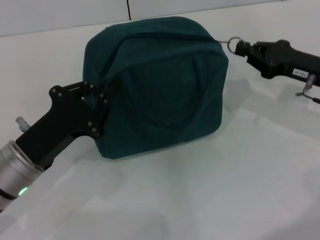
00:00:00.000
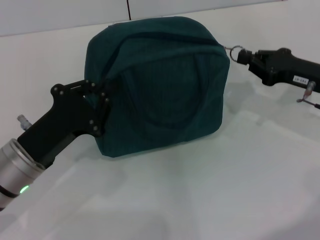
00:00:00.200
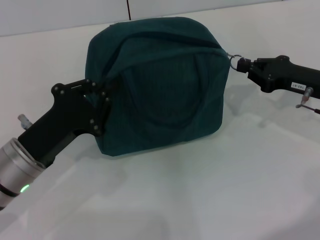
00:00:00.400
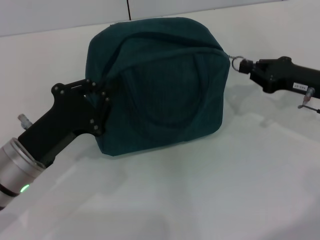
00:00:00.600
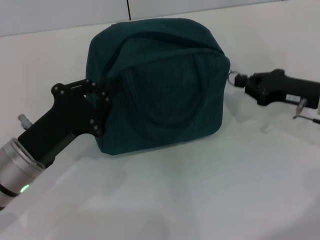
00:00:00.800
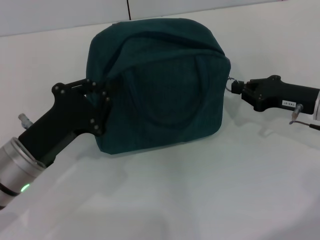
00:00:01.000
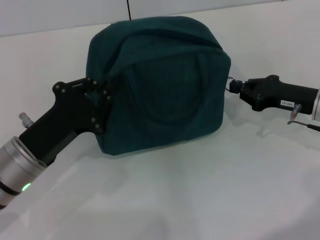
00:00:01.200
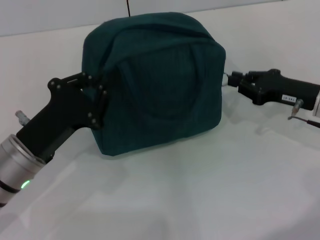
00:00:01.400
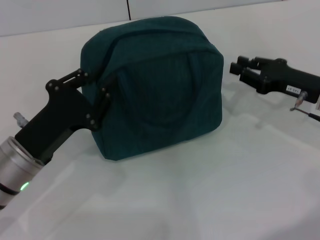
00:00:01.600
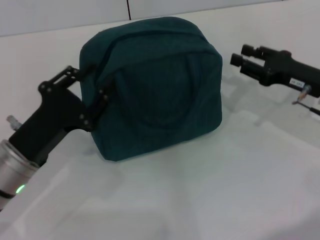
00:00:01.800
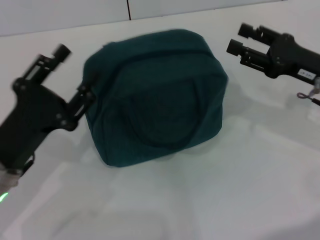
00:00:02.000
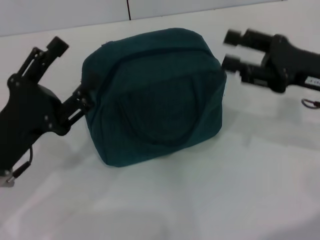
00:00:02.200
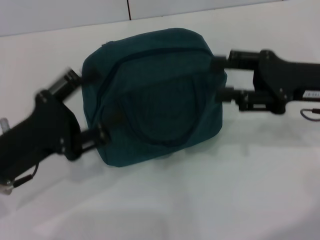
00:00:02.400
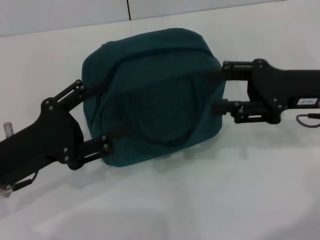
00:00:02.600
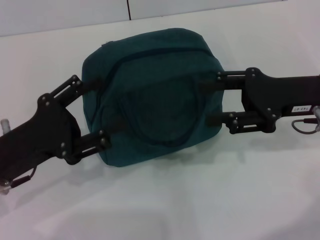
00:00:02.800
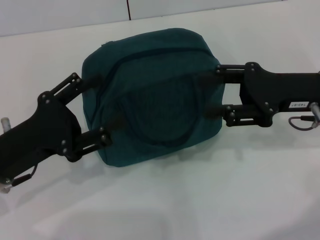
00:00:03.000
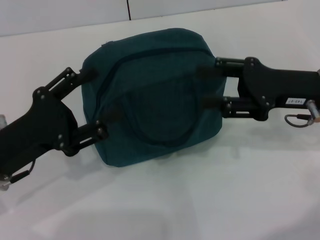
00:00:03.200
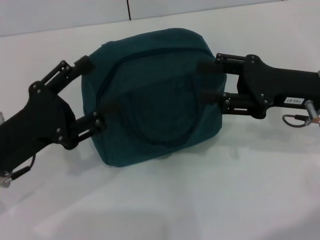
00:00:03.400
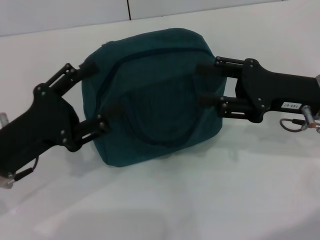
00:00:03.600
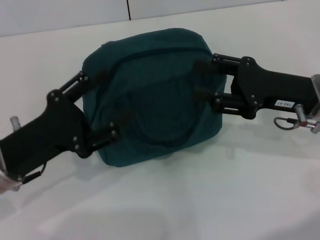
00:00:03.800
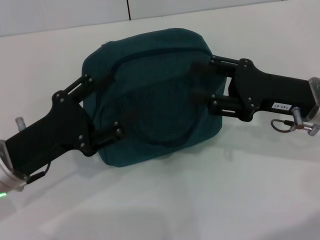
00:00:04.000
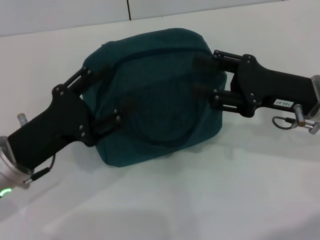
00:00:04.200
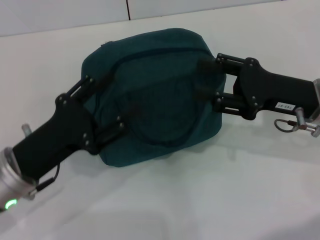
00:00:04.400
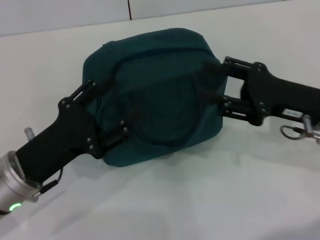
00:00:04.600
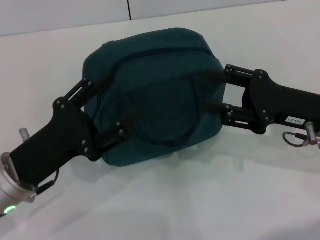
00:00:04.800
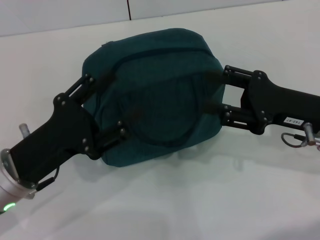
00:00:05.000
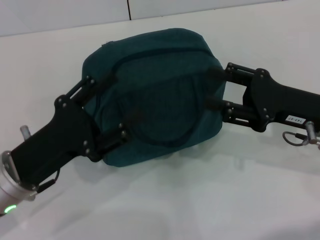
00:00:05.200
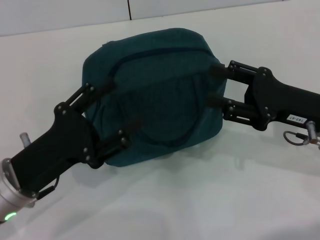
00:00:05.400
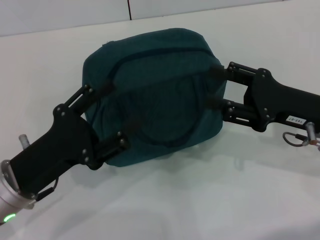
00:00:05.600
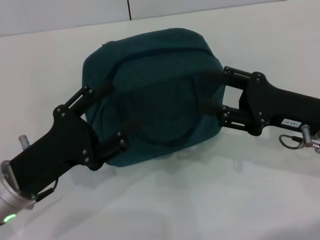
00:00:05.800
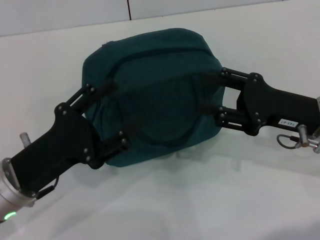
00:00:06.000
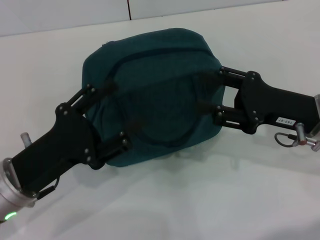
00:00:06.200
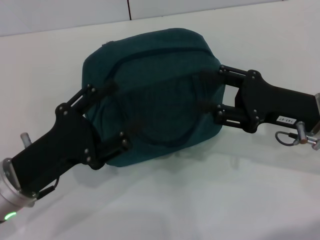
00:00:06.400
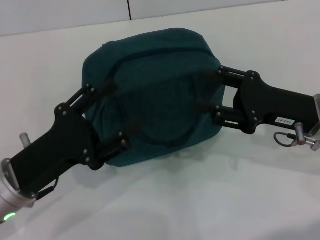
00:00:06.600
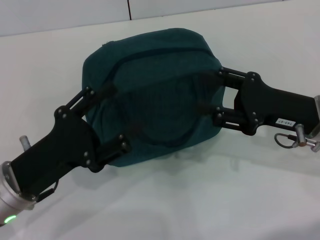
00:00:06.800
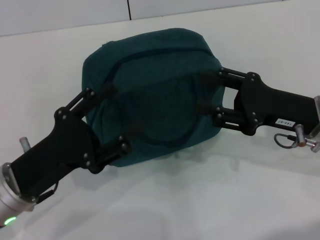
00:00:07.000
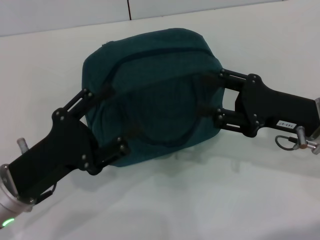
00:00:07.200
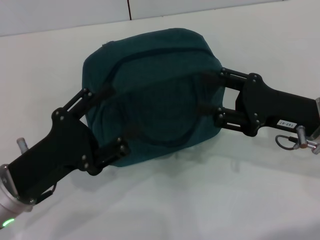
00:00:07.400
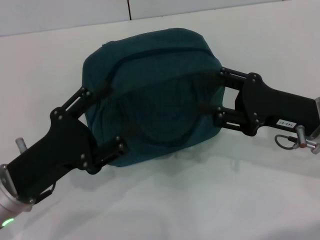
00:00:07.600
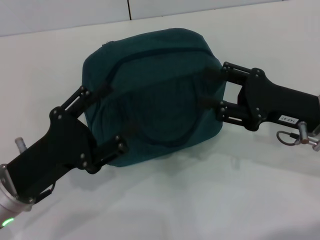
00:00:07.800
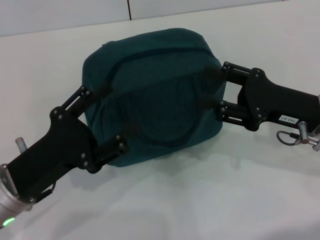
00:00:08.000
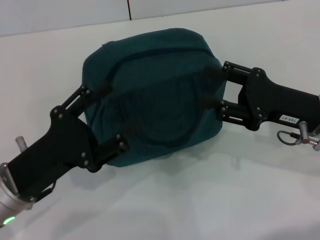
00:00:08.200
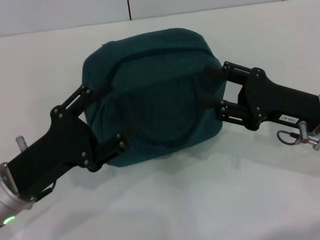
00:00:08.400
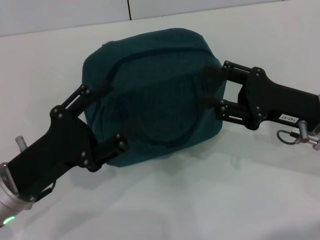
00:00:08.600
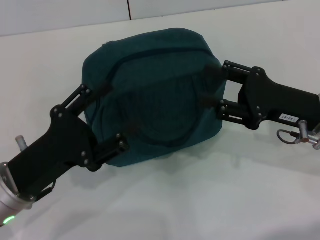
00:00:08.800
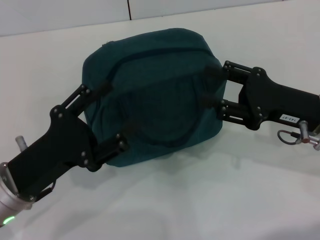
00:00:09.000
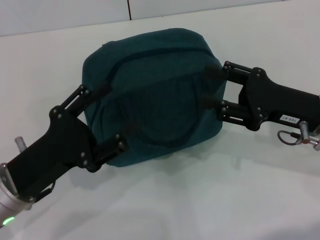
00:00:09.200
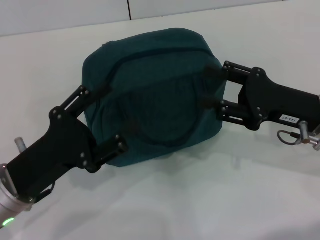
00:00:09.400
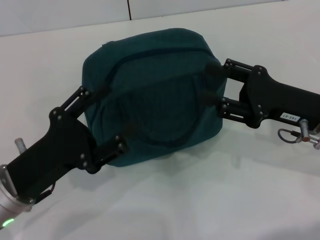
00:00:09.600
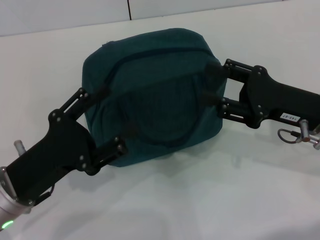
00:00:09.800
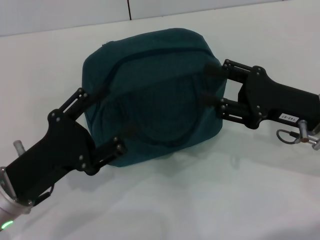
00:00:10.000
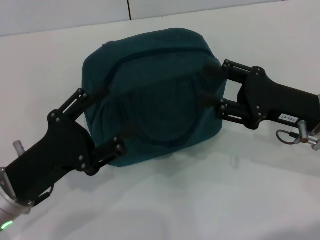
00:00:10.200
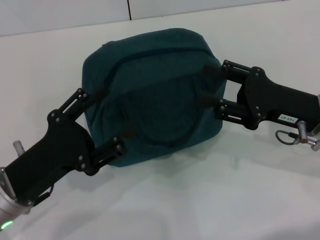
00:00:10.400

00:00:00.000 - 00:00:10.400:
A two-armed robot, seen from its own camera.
Step, 00:00:01.600 - 00:00:01.800: Hold the lunch bag with your left hand.
00:00:00.000 - 00:00:01.400: The grippers make only small movements.
00:00:01.400 - 00:00:03.000: The right gripper shifts approximately 5 cm upward, and opens. The left gripper opens its fingers.
00:00:03.000 - 00:00:06.000: There are only small adjustments of the grippers.
00:00:06.000 - 00:00:10.400: Neither gripper changes place.

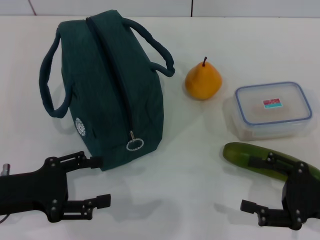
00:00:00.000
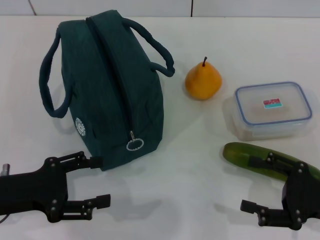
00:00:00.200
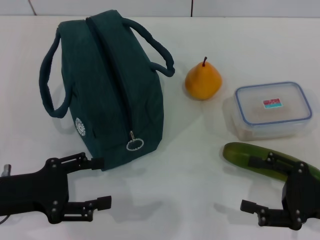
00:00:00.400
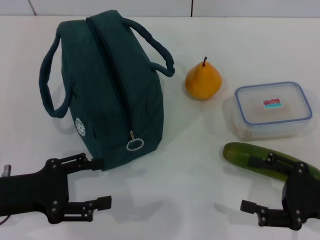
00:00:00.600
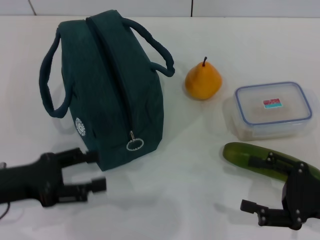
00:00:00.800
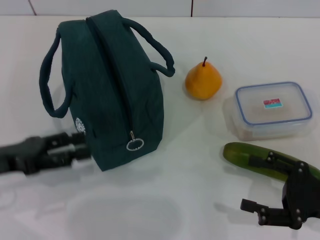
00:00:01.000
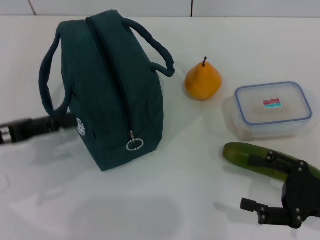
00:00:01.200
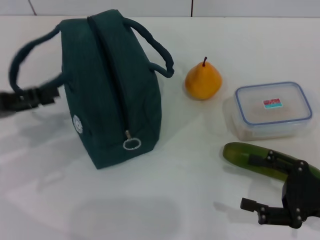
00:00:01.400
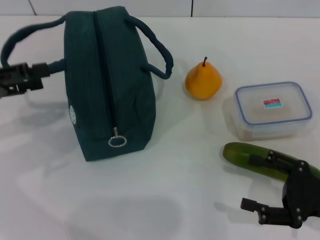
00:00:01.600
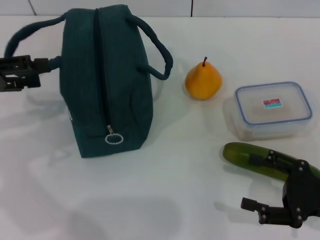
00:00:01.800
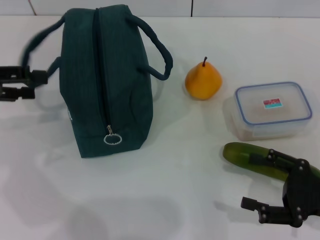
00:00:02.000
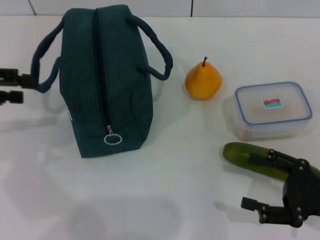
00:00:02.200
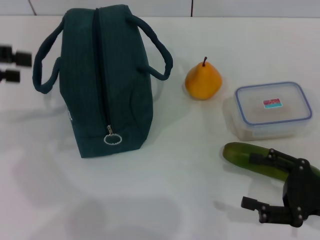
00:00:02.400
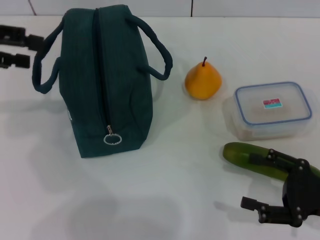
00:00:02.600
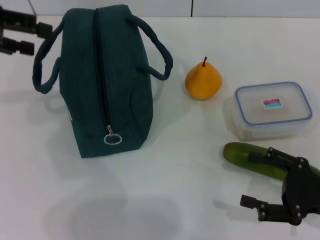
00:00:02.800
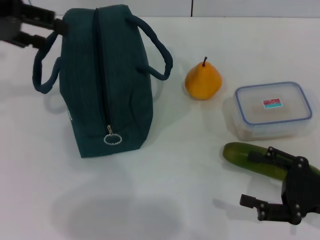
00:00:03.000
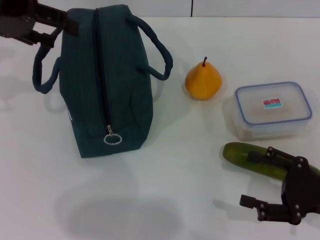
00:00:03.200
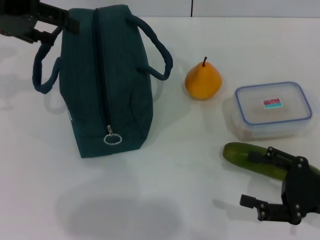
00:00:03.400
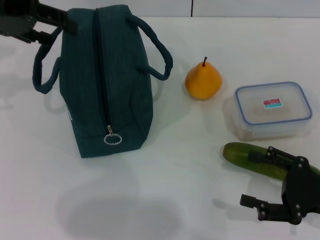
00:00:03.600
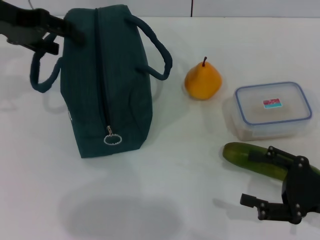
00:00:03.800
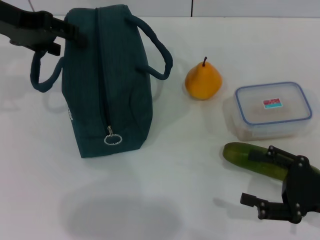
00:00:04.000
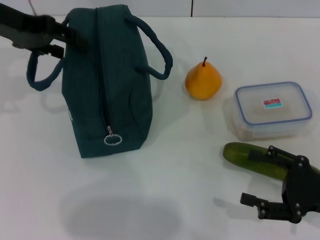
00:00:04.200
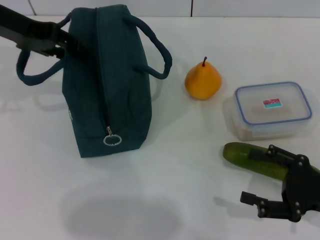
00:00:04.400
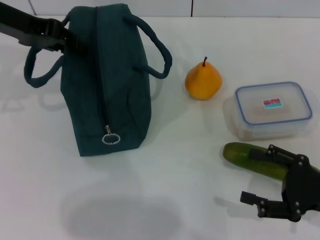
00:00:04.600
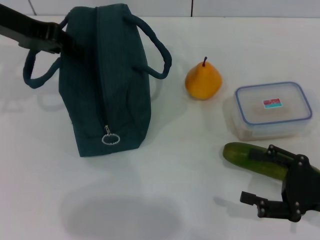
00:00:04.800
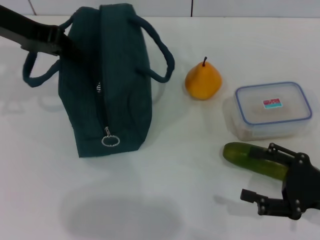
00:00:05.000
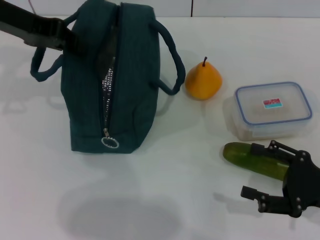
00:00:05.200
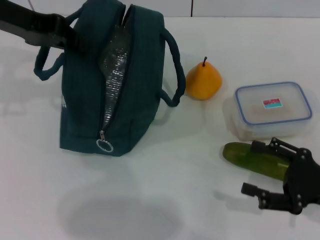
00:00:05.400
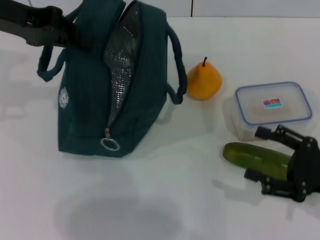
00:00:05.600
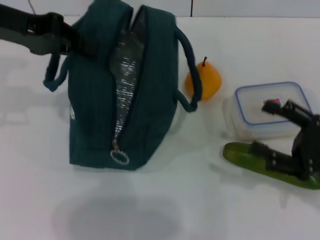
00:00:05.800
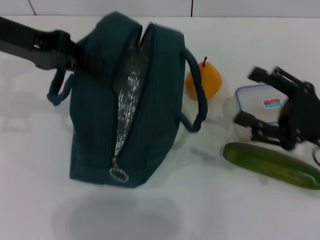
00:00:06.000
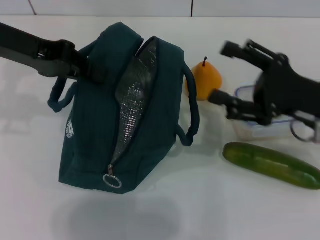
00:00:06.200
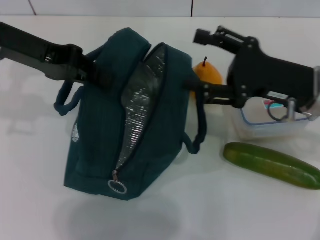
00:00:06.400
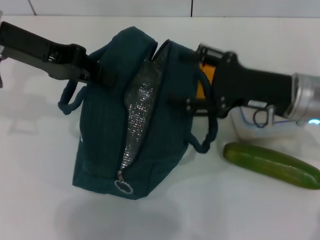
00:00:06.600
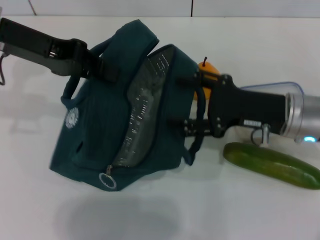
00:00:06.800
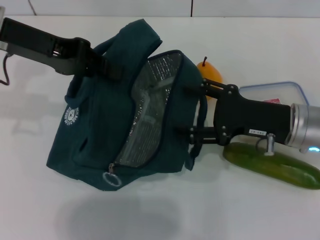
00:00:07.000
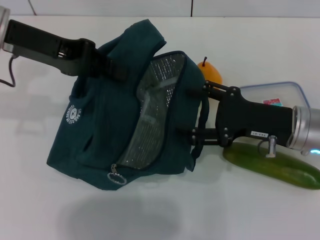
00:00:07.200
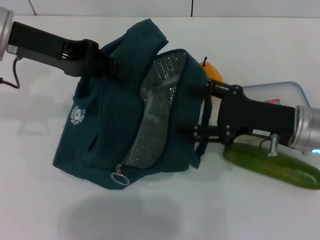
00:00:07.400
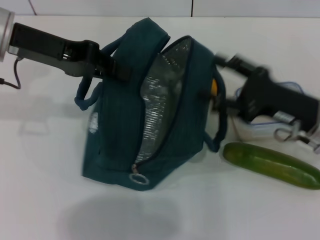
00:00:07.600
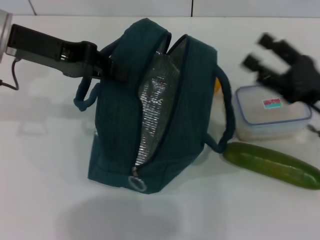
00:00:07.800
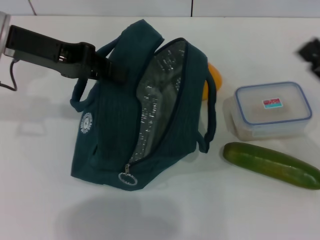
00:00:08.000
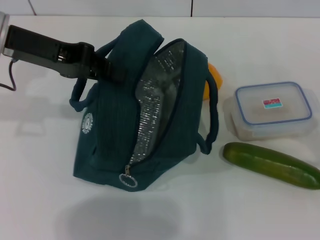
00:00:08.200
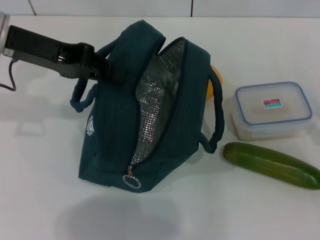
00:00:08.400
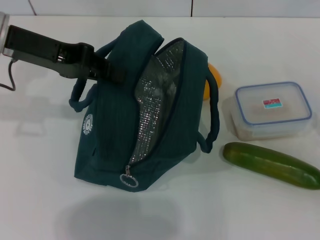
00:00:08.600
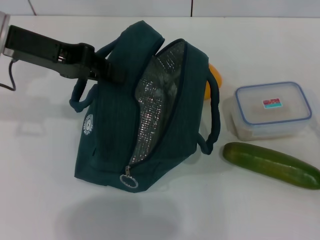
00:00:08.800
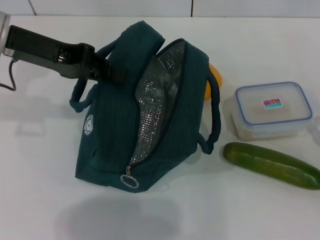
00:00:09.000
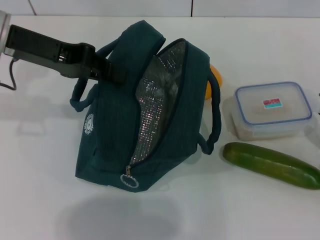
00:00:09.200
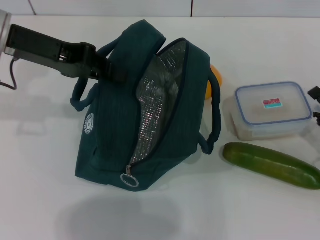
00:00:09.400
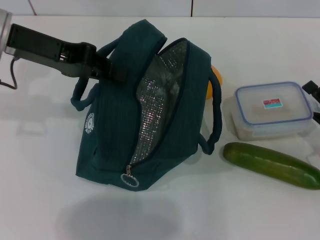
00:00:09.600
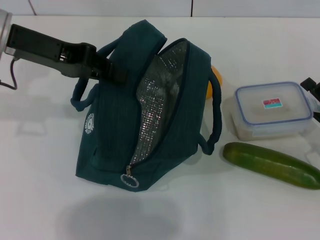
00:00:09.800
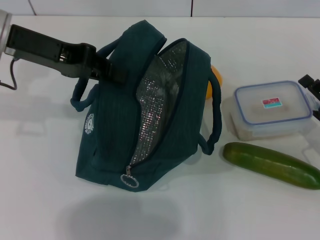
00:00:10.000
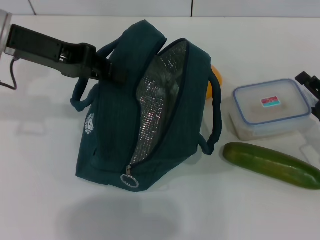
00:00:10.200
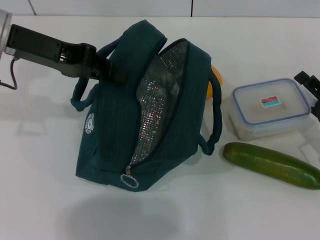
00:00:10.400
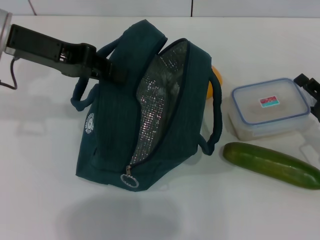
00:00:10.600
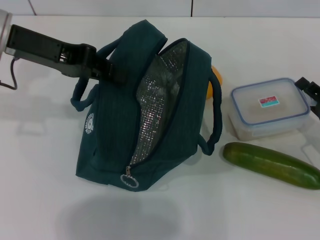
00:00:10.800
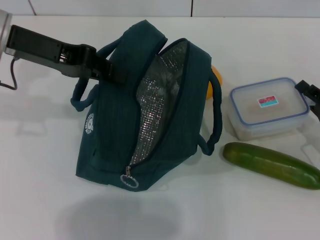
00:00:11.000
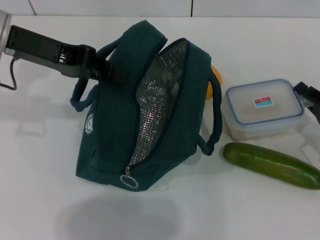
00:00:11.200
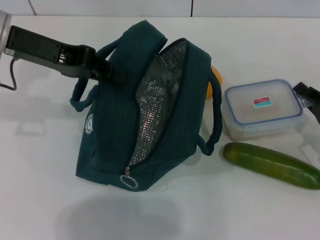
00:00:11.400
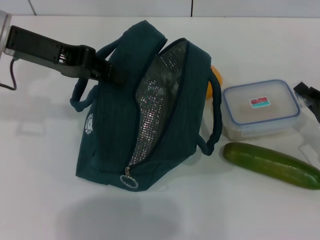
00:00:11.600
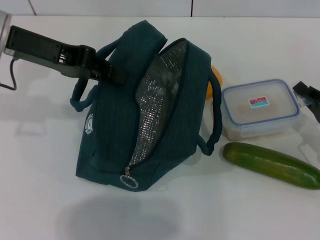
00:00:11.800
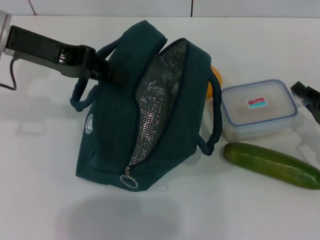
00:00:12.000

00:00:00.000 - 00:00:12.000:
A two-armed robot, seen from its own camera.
Step, 00:00:00.000 - 00:00:08.000: Hold the lunch bag with your left hand.
Step, 00:00:08.200 - 00:00:11.800: Pick up the lunch box with your right hand.
00:00:00.000 - 00:00:01.600: The left gripper heads upward, forward and to the left, covering some 15 cm.
00:00:01.600 - 00:00:03.000: The left gripper heads upward and forward, covering about 15 cm.
00:00:03.000 - 00:00:04.400: The left gripper shifts by approximately 5 cm.
00:00:04.400 - 00:00:06.000: The left gripper closes its fingers. Meanwhile the right gripper changes place by some 5 cm.
00:00:07.600 - 00:00:09.000: The right gripper heads to the right, downward and backward, covering approximately 15 cm.
00:00:09.000 - 00:00:10.400: The right gripper shifts roughly 5 cm forward.
00:00:10.400 - 00:00:12.000: The right gripper closes.
